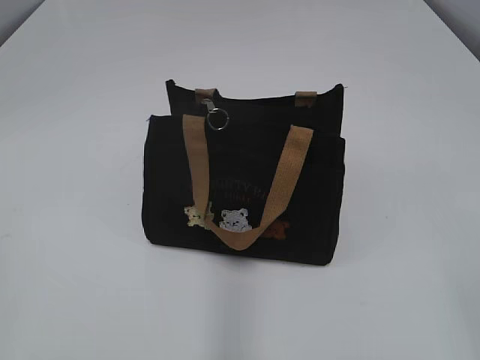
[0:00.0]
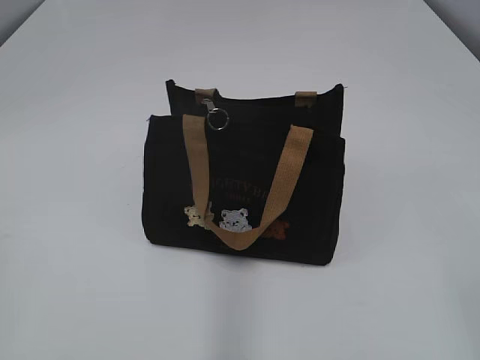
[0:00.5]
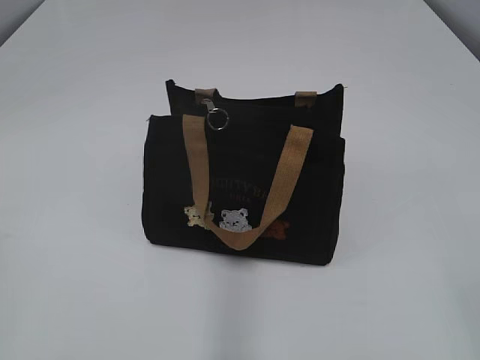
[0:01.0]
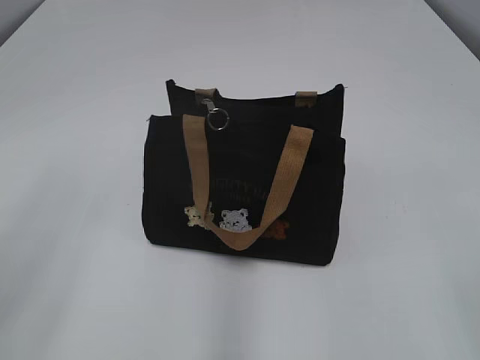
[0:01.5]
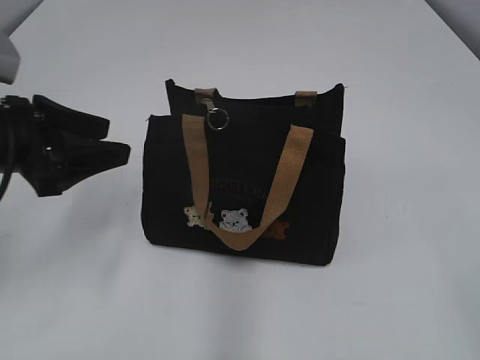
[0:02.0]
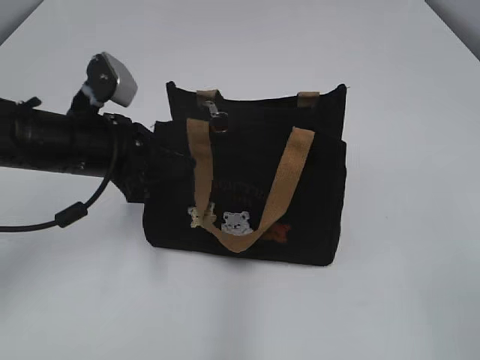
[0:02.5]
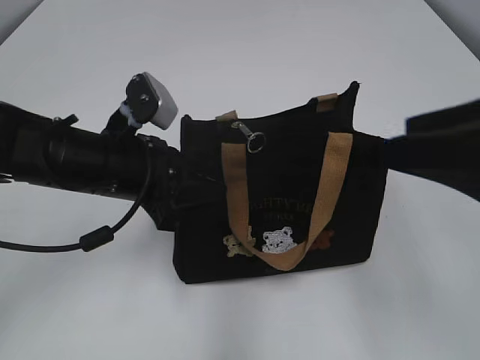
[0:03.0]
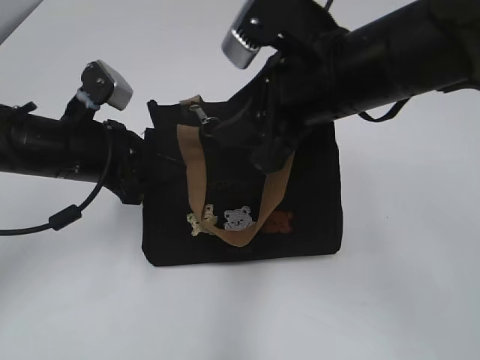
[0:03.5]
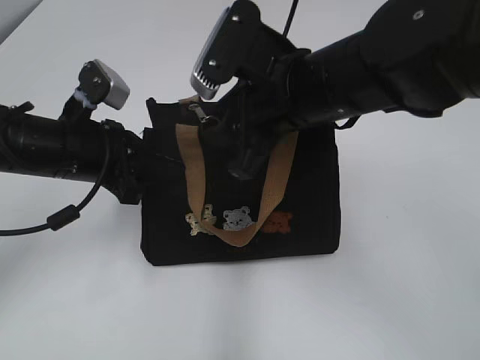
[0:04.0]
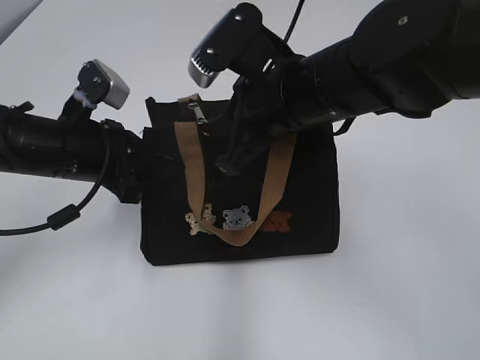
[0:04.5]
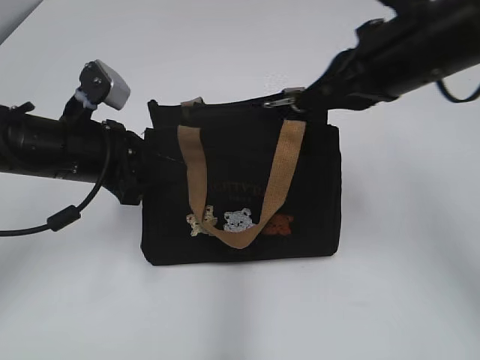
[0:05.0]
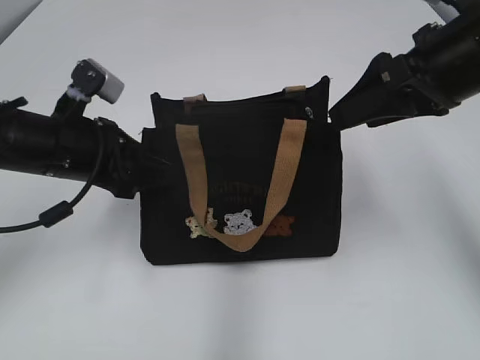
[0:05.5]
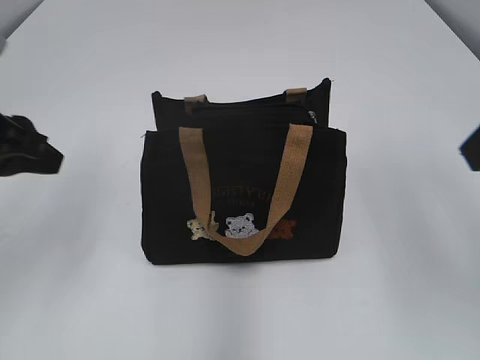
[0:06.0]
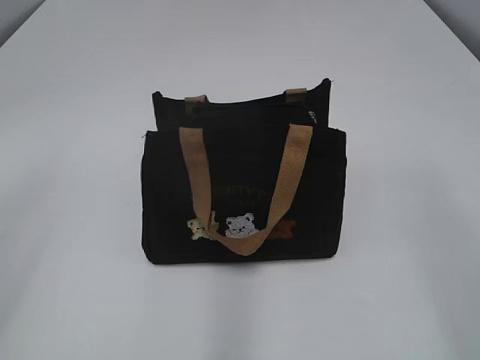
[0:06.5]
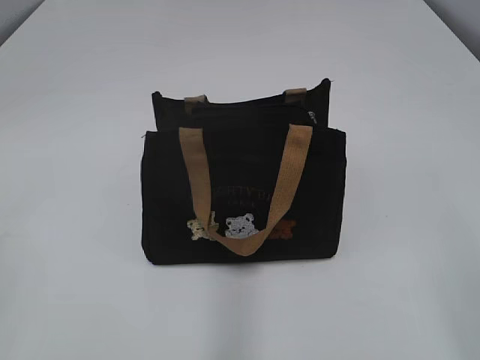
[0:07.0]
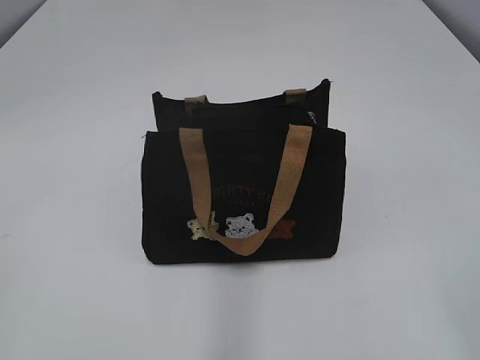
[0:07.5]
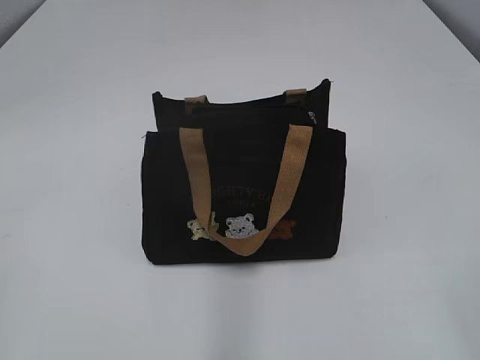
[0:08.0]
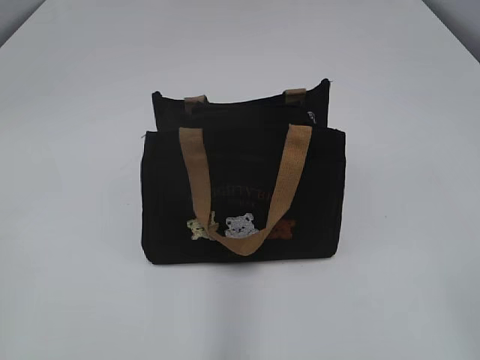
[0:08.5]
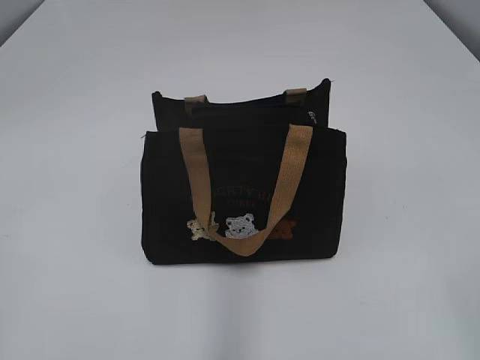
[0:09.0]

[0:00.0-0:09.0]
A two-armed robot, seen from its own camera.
Step, 0:00.0 to 0:05.0: Zip up the bag with your right hand.
0:02.0 to 0:04.5: The right gripper shifts approximately 35 cm forward and to the left, and closes up, while the left gripper travels to the right and downward by about 10 cm, and closes its fingers.
0:04.5 to 0:07.0: The left gripper heads backward, to the left and upward, covering about 35 cm, and opens up; the right gripper travels backward and to the right by about 35 cm, and opens.
